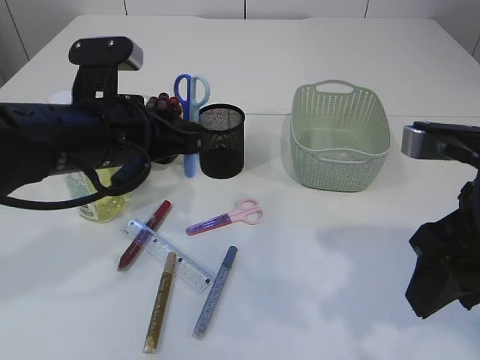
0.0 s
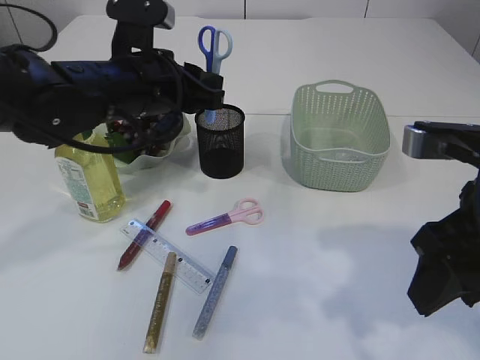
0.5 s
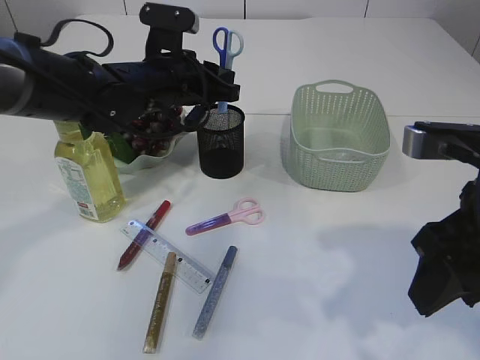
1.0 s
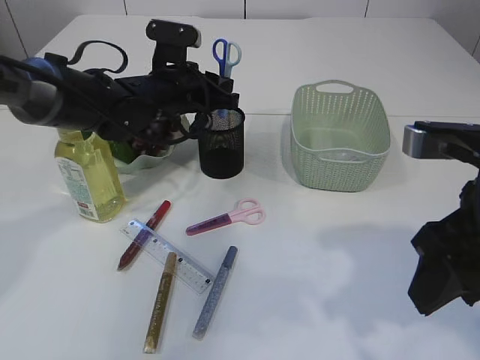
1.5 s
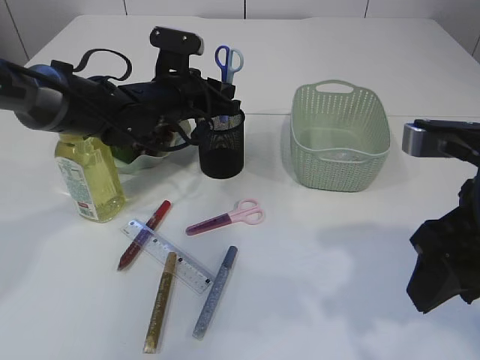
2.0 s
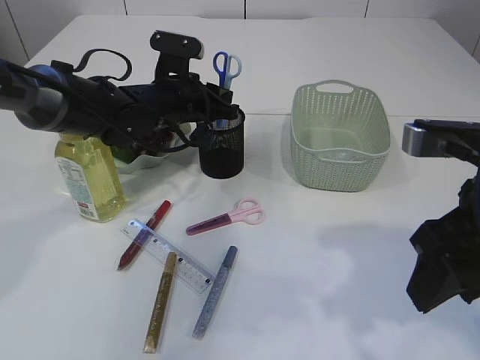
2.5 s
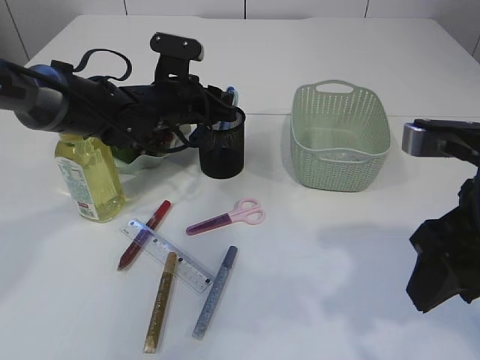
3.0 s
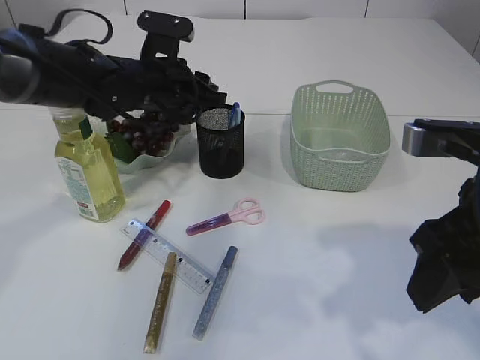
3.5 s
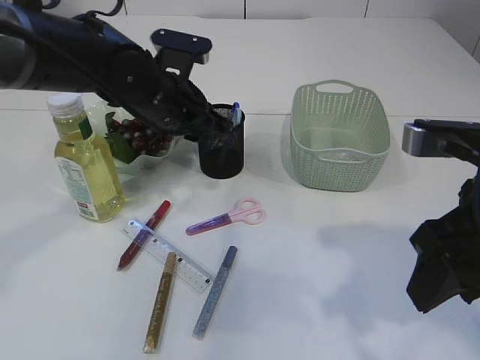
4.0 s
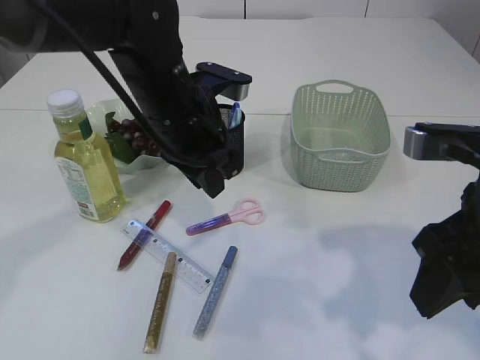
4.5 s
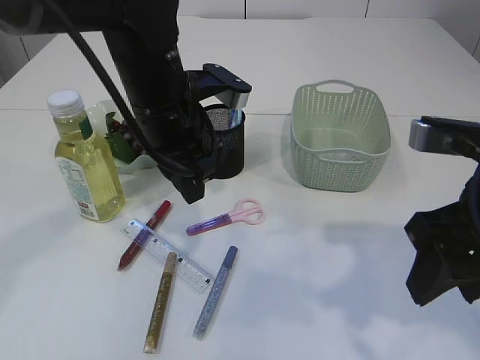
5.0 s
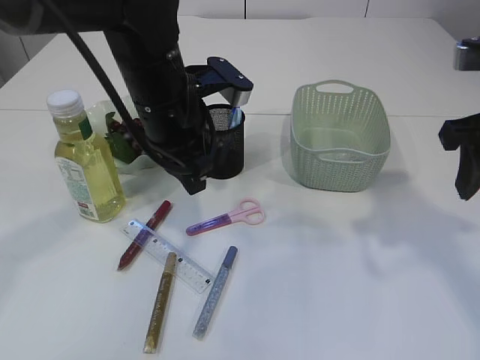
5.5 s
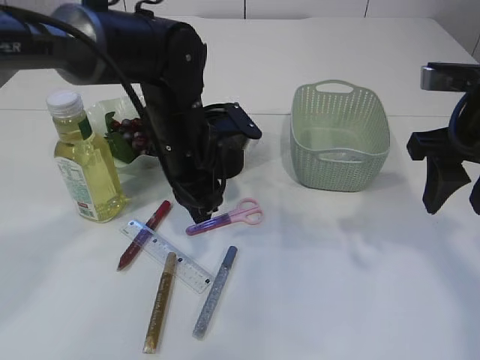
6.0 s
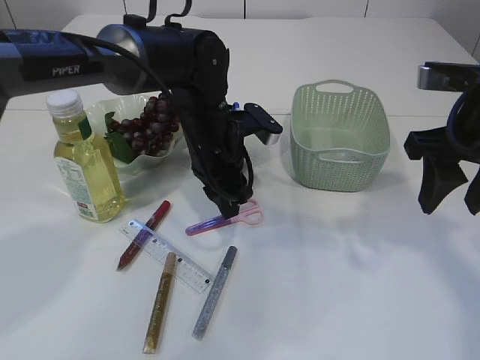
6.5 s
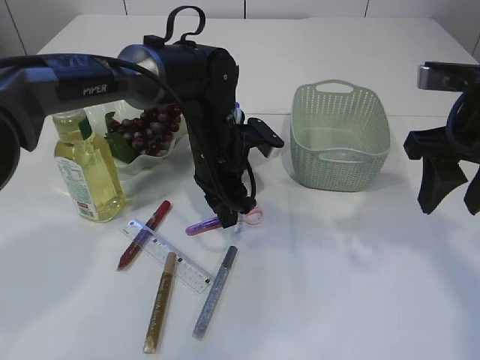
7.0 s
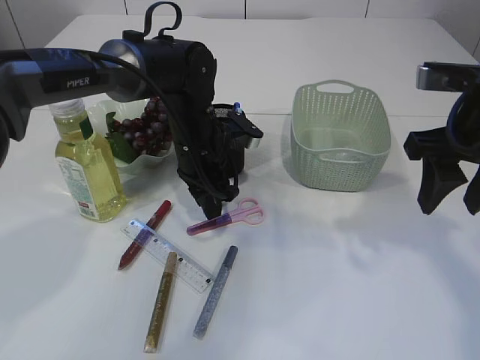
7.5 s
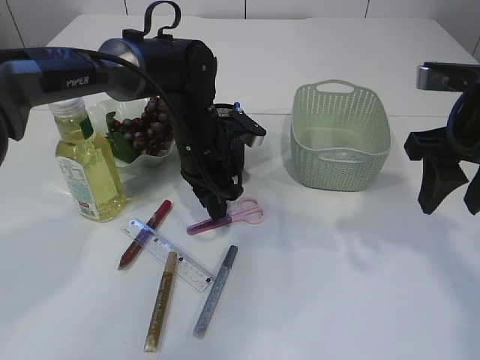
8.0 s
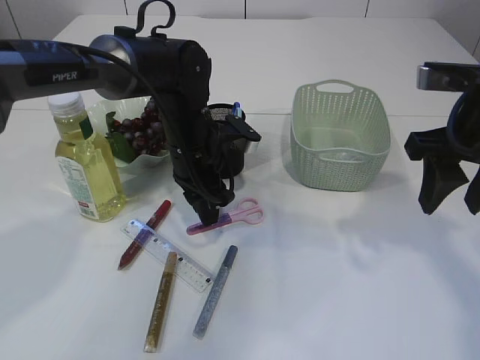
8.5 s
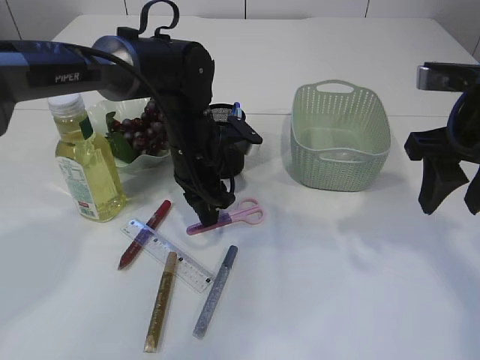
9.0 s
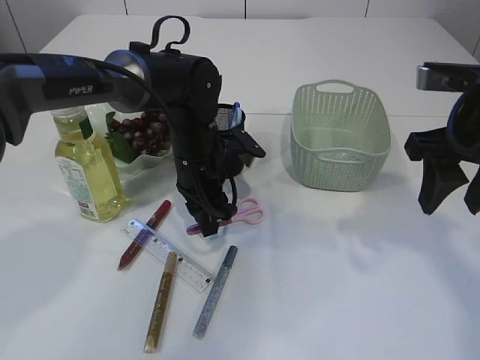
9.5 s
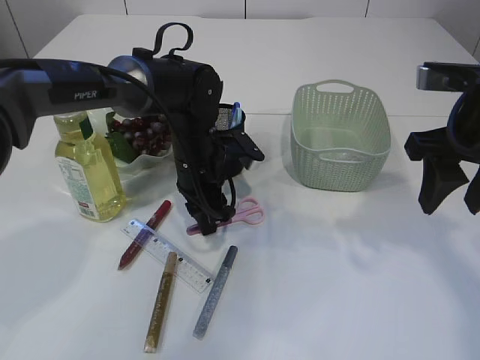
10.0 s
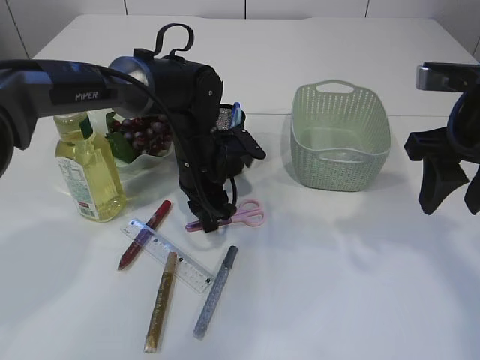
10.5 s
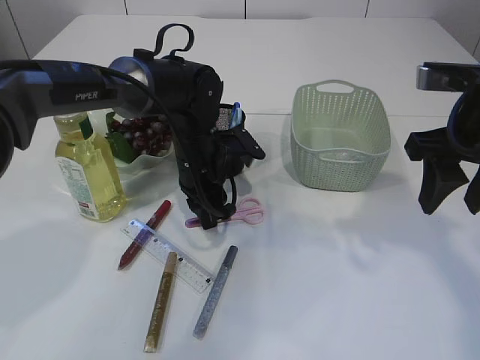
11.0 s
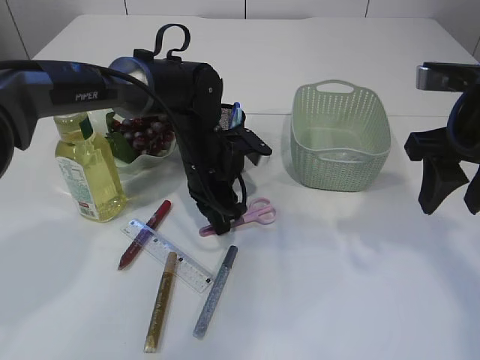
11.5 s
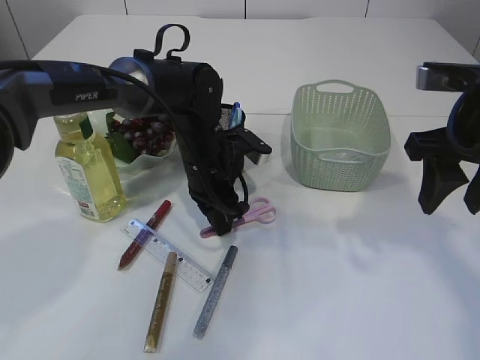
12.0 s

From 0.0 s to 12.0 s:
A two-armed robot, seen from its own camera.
Step, from 0.0 s to 3.5 s: Place the blue knife into the pen holder.
From 0.0 s to 2.0 s: The left gripper travels forward by some 15 cm.
From 2.0 s to 4.0 s: The left gripper moves some 5 cm.
From 4.0 s to 6.0 s: The right gripper moves forward, some 10 cm. The left gripper changes place by approximately 5 cm.
From 6.0 s to 8.0 s: The left gripper heads forward, covering roughly 5 cm.
From 8.0 s to 12.0 s: The grippers move only a little.

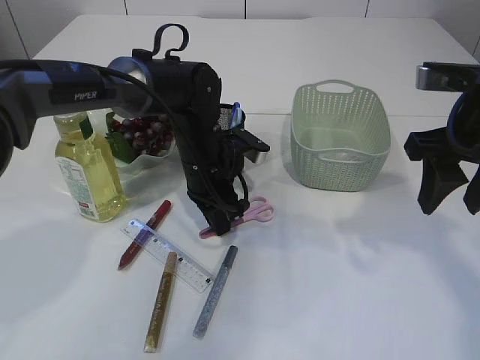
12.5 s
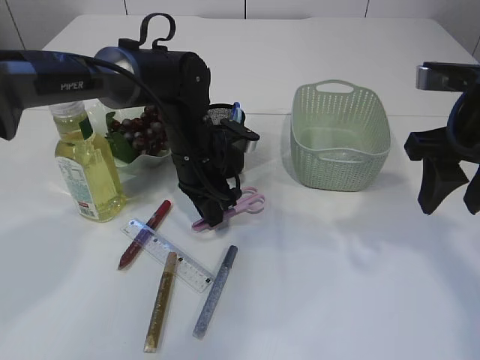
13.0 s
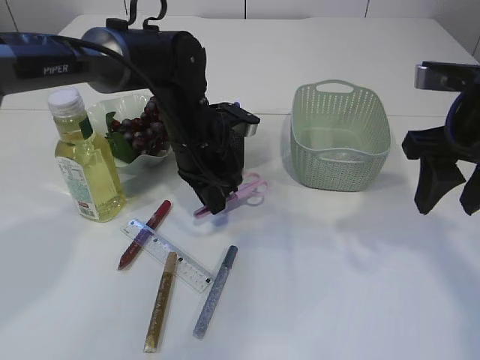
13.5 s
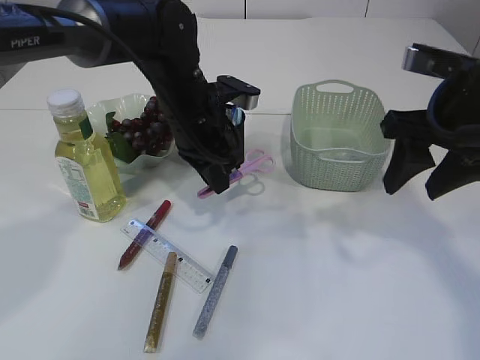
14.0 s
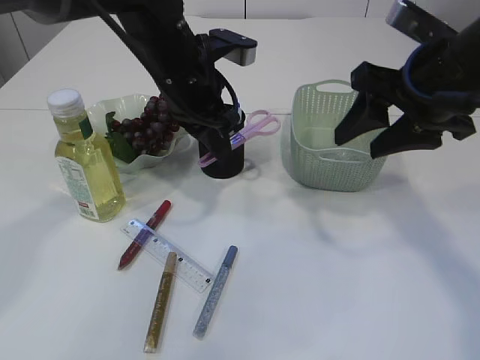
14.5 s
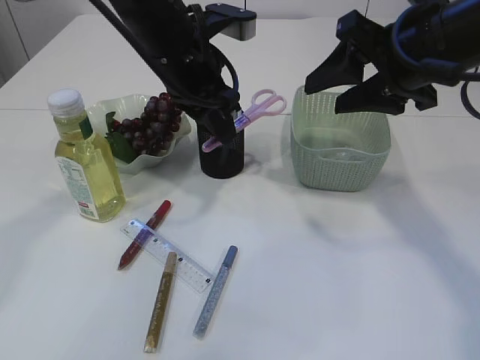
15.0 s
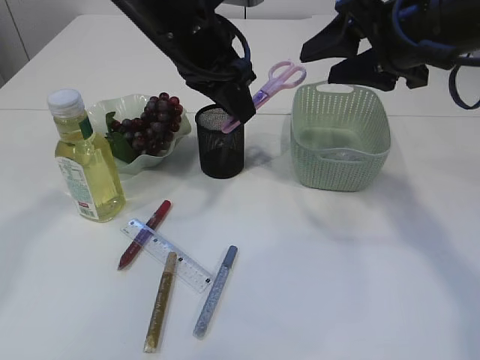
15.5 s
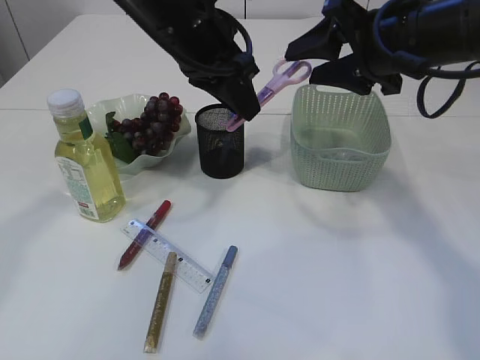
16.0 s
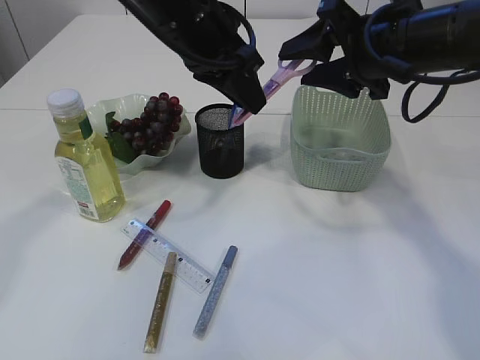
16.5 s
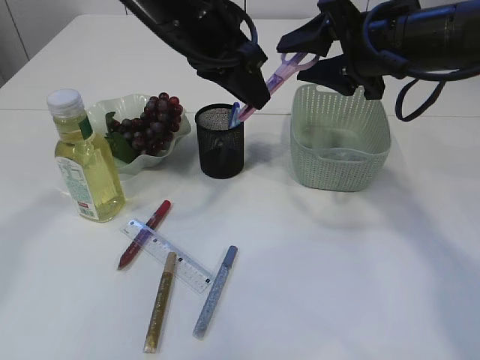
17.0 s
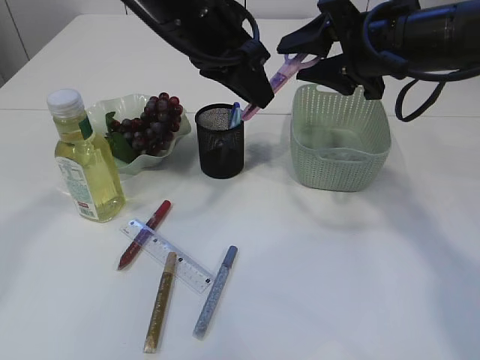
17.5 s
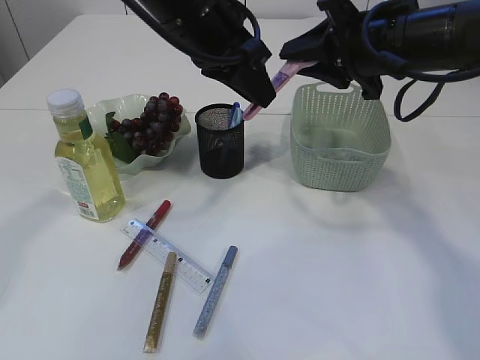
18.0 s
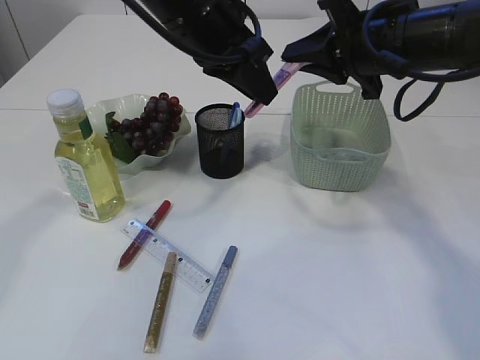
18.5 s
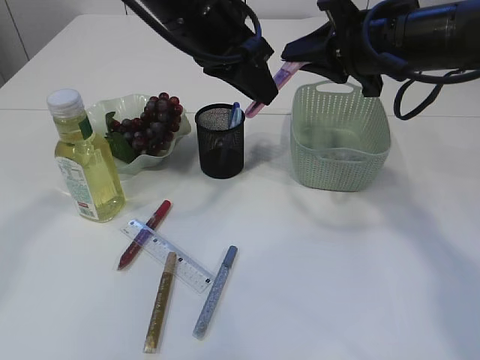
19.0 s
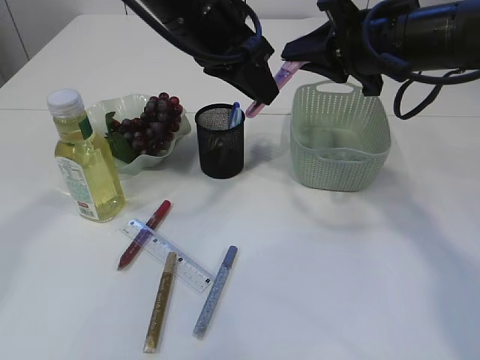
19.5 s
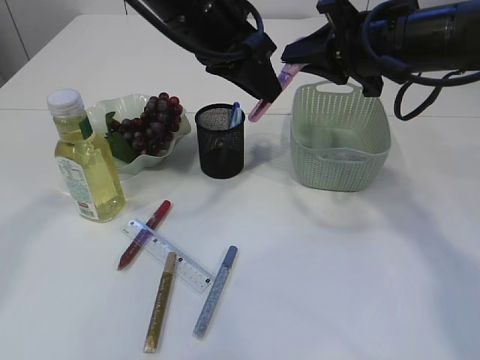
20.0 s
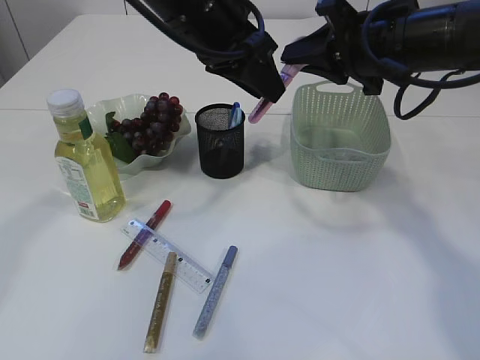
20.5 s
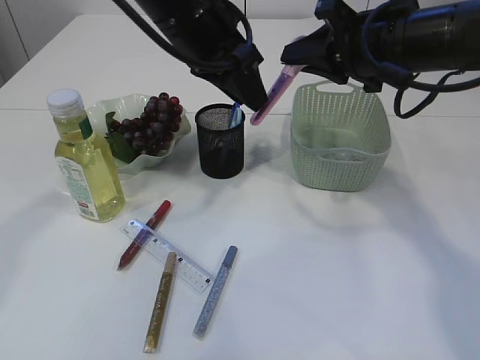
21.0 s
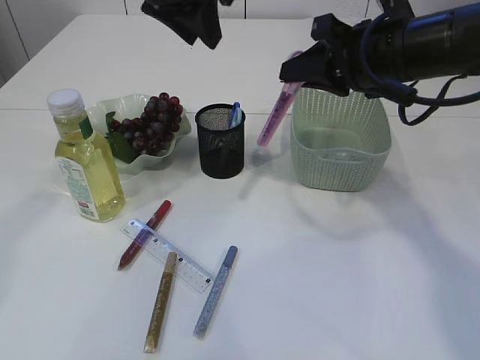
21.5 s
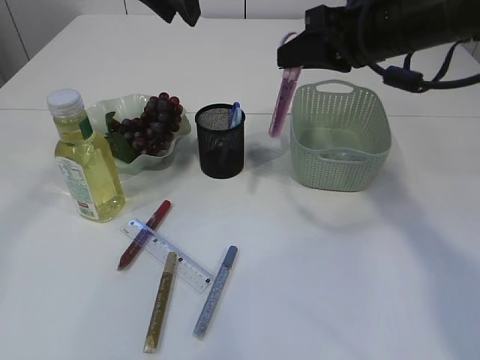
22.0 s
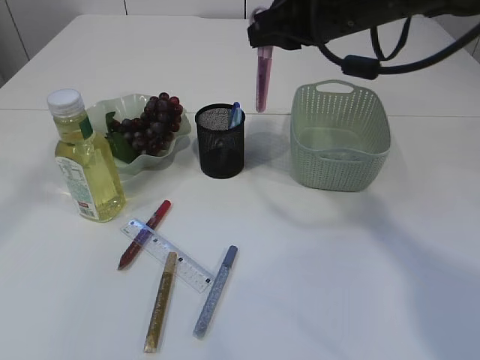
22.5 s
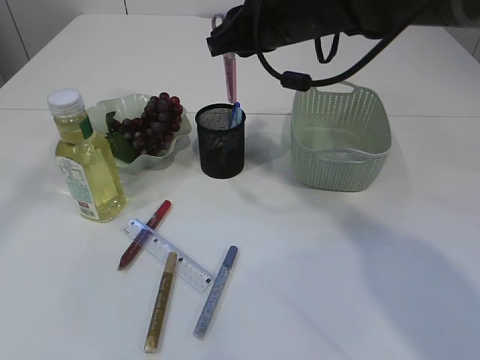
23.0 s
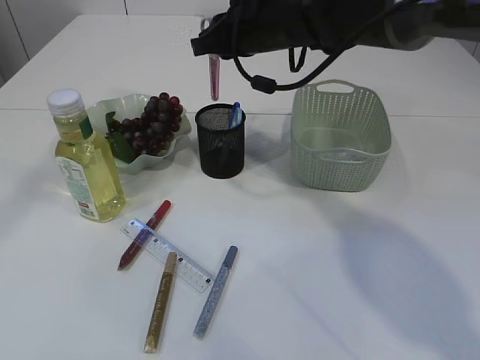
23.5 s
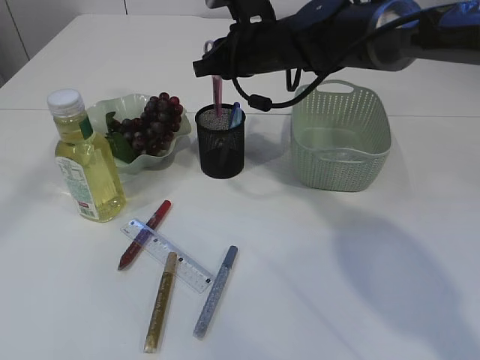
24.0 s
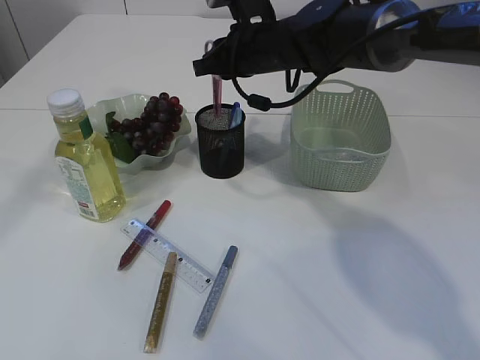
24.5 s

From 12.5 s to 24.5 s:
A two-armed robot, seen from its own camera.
Step, from 14.0 s to 21.0 s: Hand over the pink scissors.
From 12.5 s to 14.5 s: The left gripper is displaced upward by roughly 15 cm.
From 14.5 s to 16.5 s: The right gripper shifts approximately 5 cm forward. Meanwhile the left gripper heads upward, covering approximately 5 cm.
From 16.5 s to 18.5 s: The right gripper closes its fingers.
From 18.5 s to 20.5 s: There are only small adjustments of the grippers.
From 20.5 s to 22.5 s: The left gripper heads upward and to the left, covering roughly 15 cm, while the right gripper moves to the left, approximately 5 cm.
From 22.5 s to 24.5 s: The right gripper goes approximately 15 cm forward, downward and to the left.

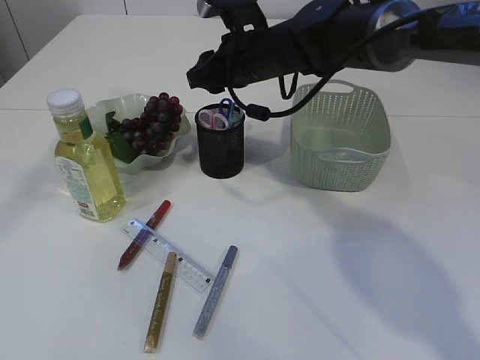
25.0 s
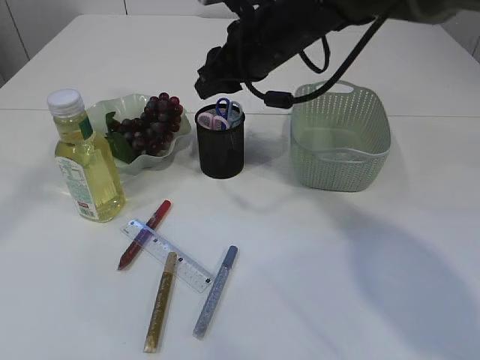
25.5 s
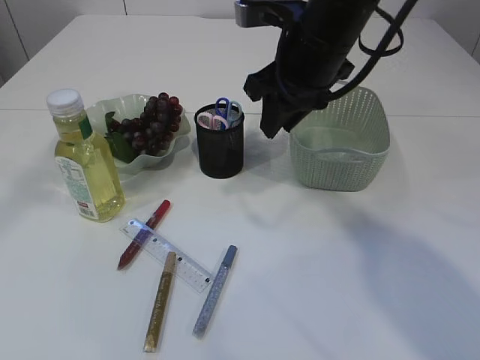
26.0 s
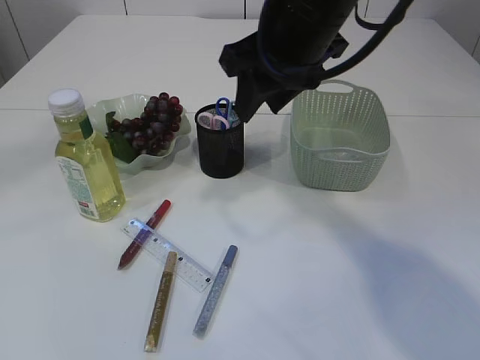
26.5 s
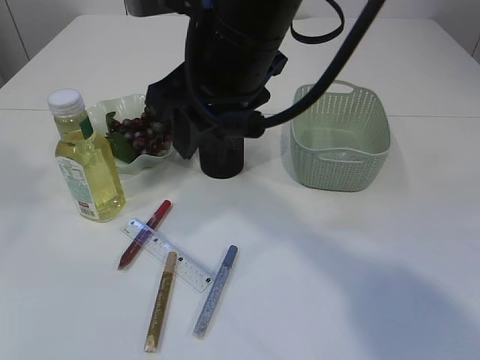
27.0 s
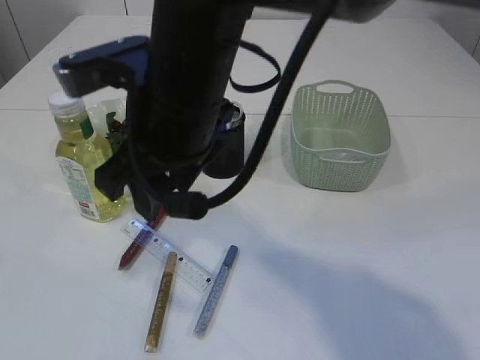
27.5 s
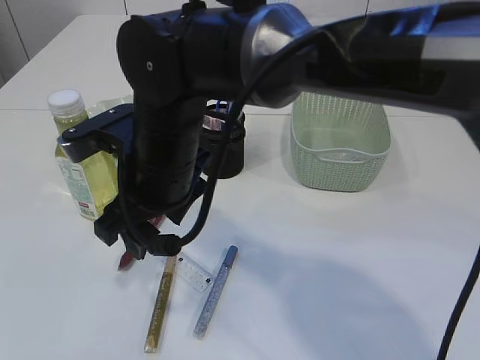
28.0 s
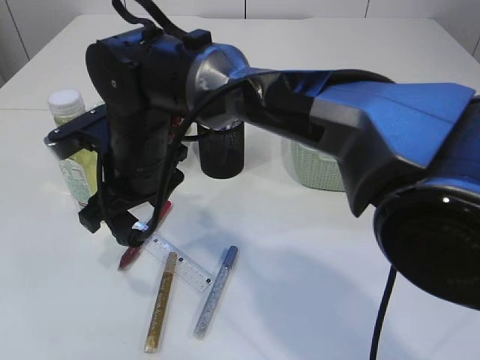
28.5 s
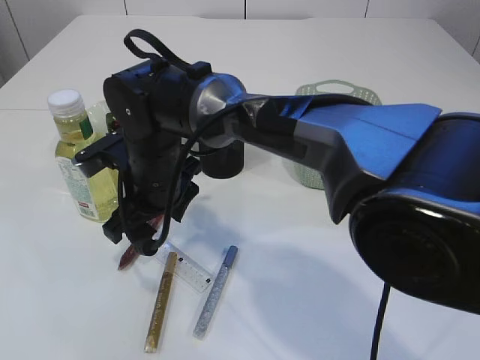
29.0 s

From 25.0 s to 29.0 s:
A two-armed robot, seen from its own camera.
From 25.0 s to 27.0 s: The right gripper is displaced backward and upward by roughly 20 cm; the left gripper goes roughly 20 cm backward, upward and to the left.
From 27.0 s to 29.0 s: The right gripper travels downward and to the left by about 20 cm, while the left gripper moves backward and downward, roughly 15 cm.
